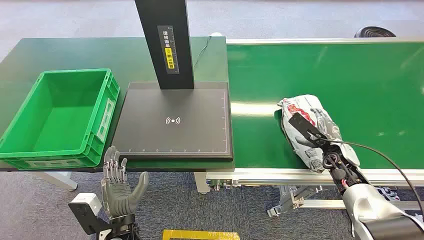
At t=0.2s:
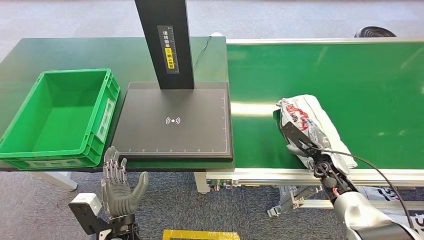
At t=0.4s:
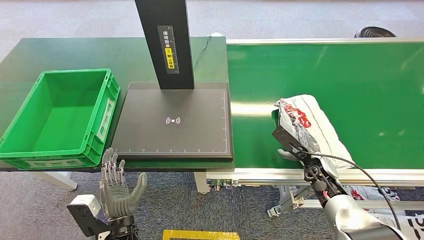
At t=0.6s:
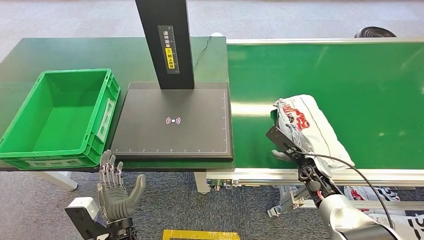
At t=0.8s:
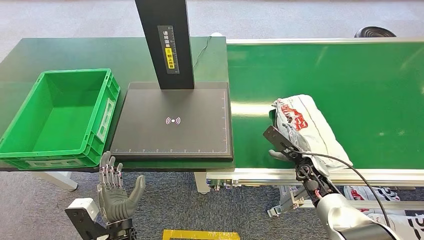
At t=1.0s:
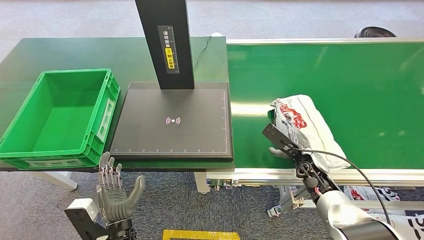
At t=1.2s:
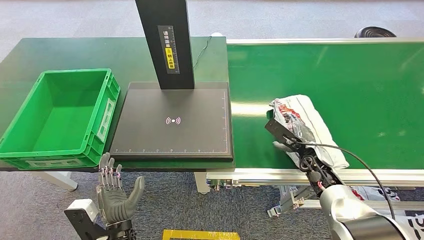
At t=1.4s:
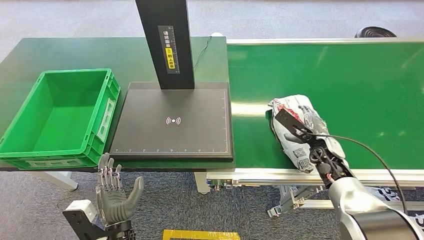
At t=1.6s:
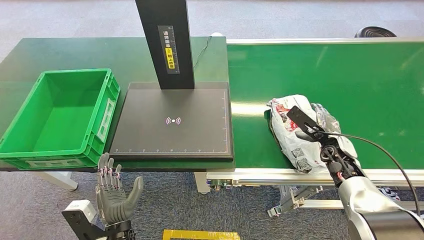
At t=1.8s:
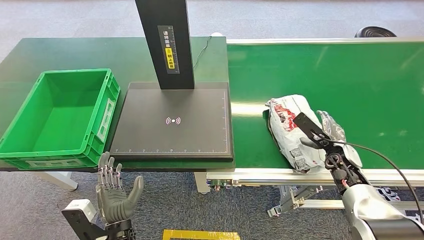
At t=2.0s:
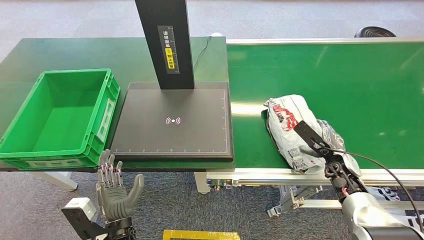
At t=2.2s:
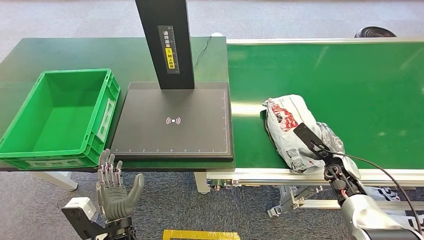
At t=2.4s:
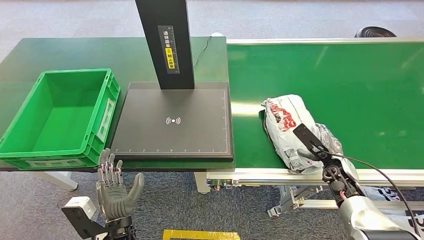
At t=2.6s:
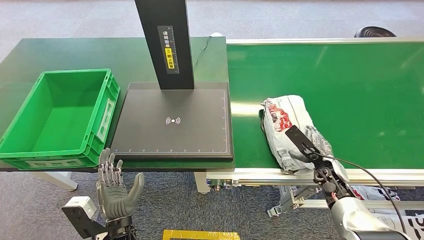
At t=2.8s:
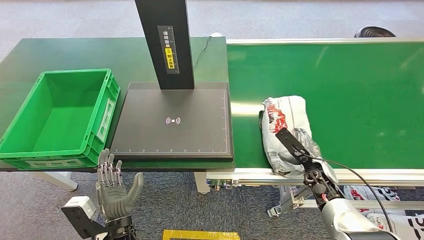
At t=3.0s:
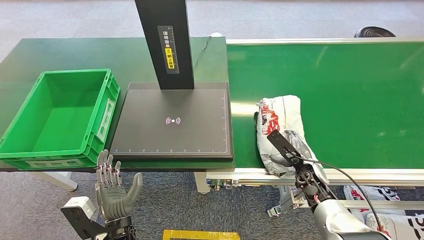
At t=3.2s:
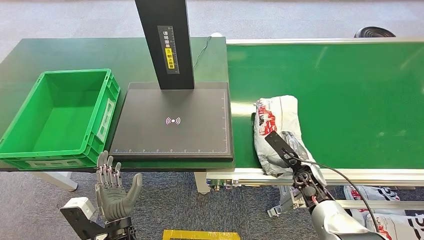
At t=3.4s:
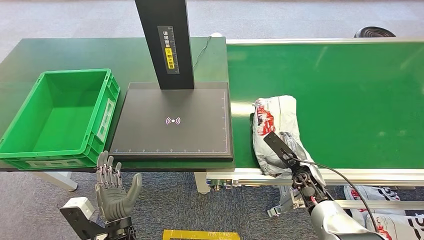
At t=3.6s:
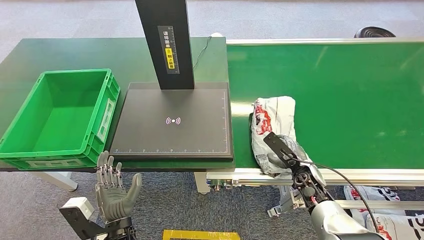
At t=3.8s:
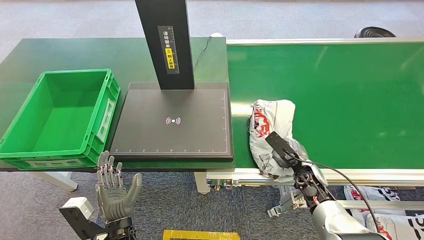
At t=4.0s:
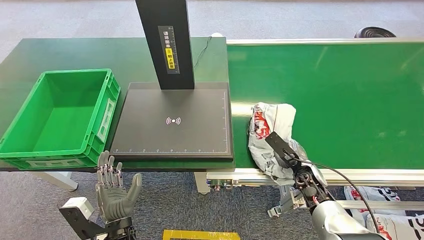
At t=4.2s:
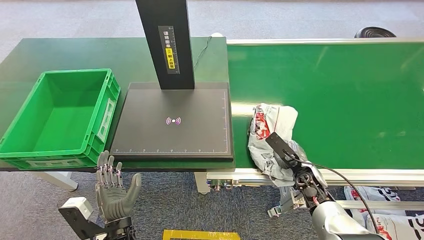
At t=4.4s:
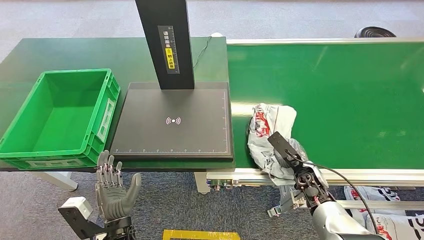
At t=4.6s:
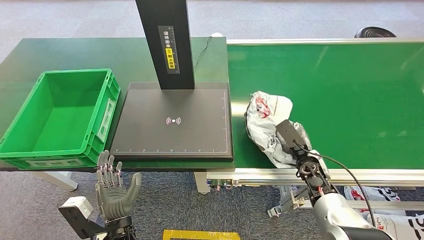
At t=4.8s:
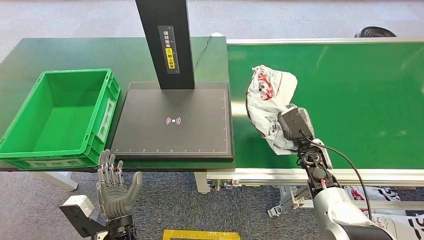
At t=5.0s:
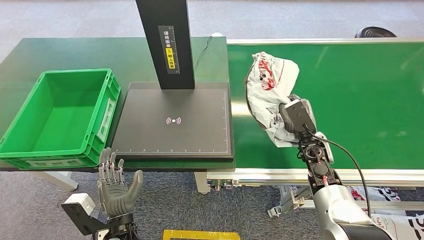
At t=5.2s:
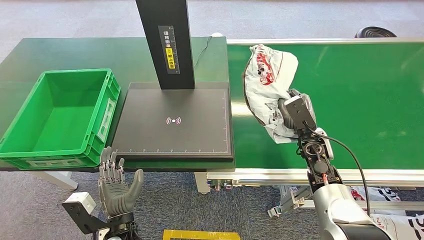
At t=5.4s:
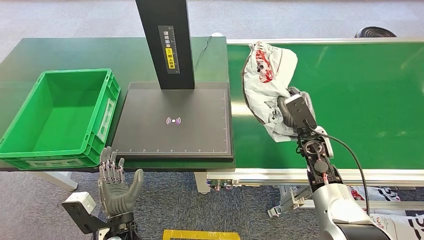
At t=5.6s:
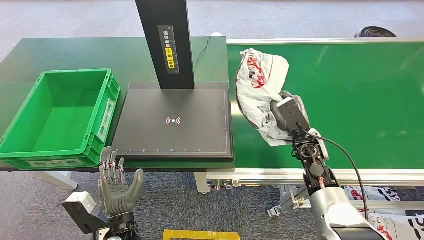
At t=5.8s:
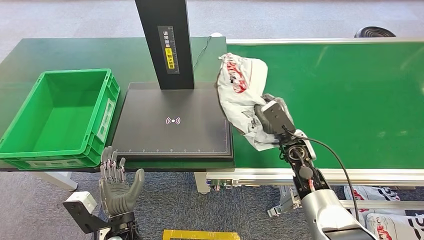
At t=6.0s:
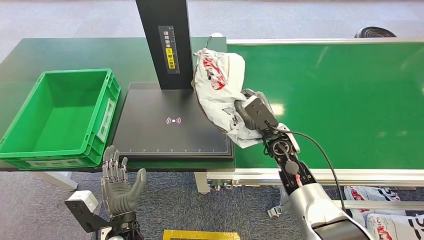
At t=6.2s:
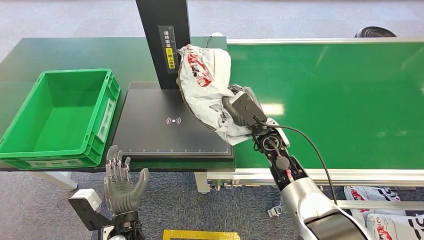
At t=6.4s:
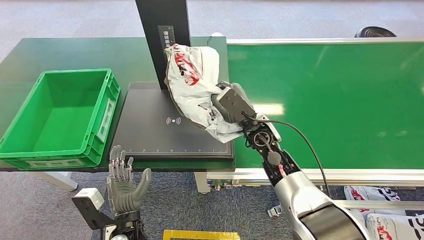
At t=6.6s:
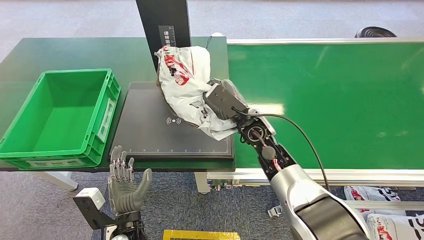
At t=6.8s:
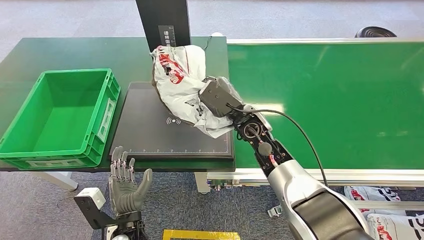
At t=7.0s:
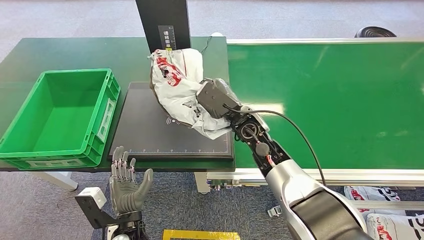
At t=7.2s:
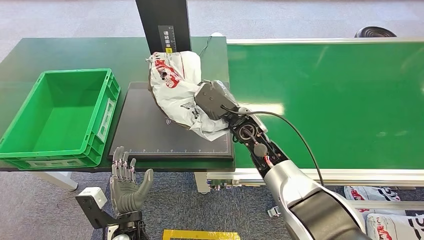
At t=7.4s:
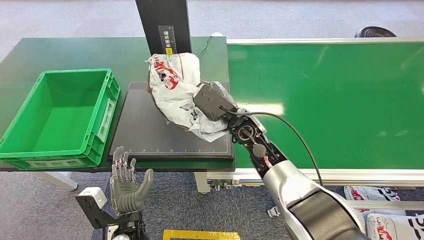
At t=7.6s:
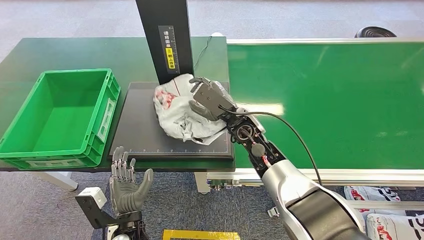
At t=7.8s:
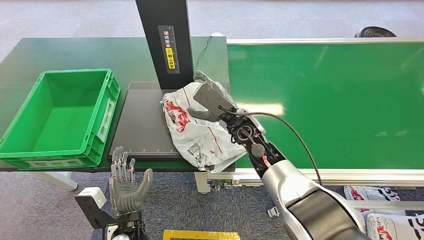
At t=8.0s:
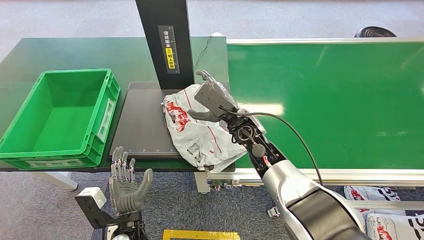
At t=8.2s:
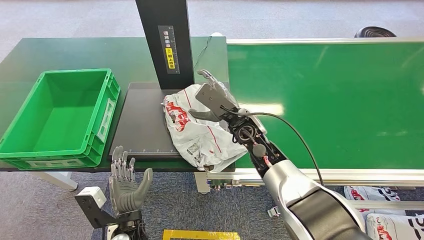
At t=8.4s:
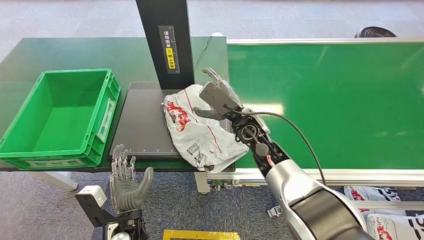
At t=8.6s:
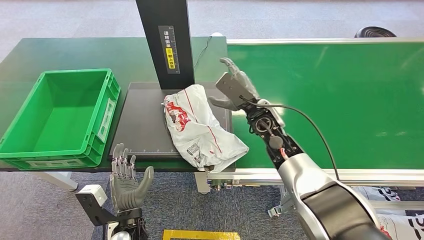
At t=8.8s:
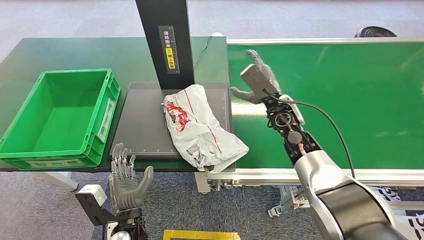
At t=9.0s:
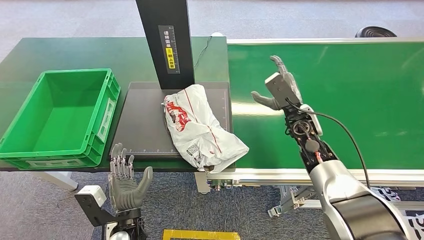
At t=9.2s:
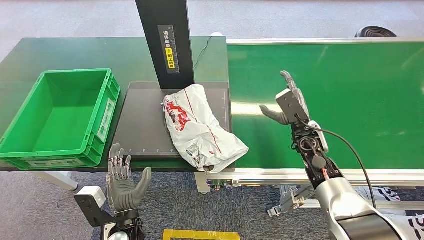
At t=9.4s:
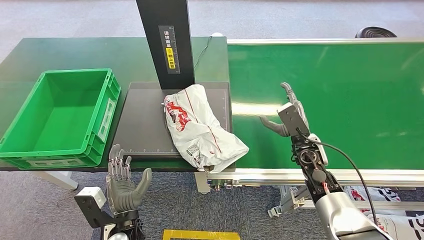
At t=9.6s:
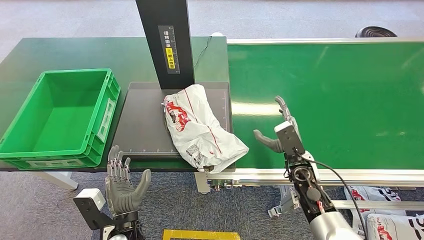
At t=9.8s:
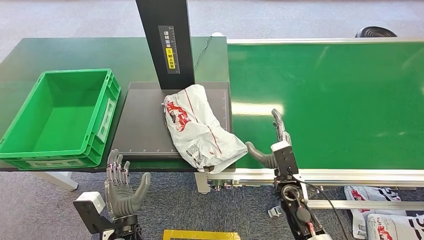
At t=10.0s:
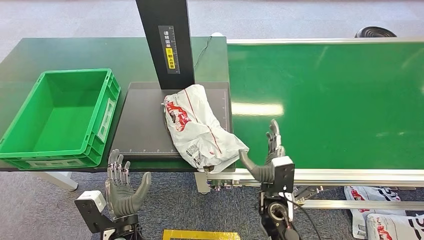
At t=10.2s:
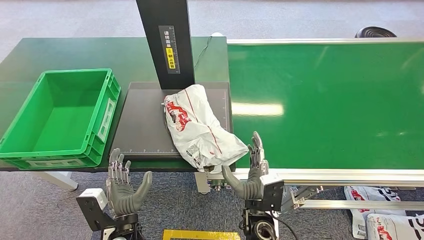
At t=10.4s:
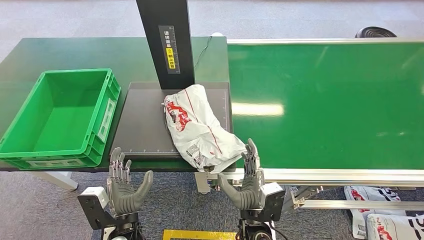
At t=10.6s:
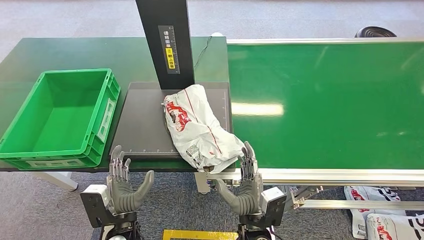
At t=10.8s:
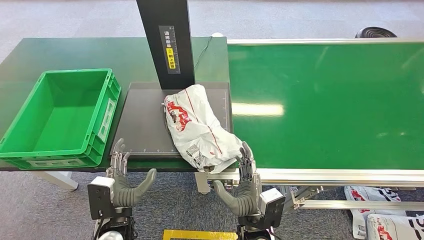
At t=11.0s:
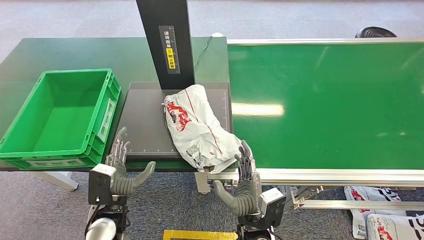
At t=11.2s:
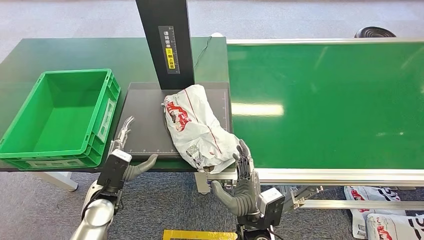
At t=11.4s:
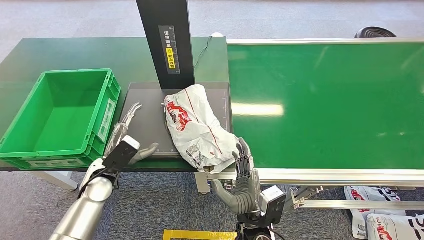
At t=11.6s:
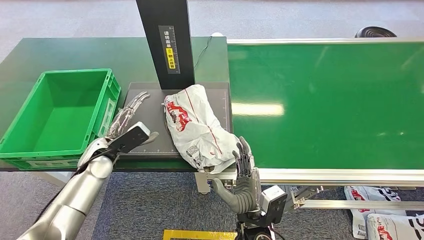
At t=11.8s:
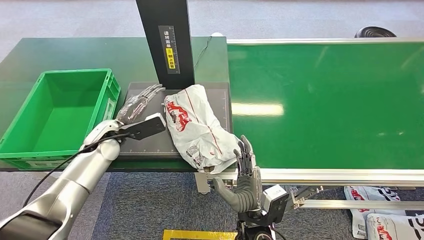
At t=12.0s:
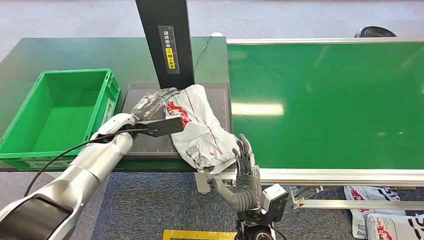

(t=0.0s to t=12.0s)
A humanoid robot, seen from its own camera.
Task of the whole recording: Weigh the package on the weighing device and place it in the left basket.
Step, t=0.0s - t=5.4s: Pick up the package from the conveyor belt.
Step, t=5.6s - t=9.6s: Place the package onto the inbound machine.
t=1.6s - t=3.0s: The right hand moves downward and to the left, about 10 cm.
t=3.0s - t=4.4s: There are only small adjustments of the hands.
t=4.4s - t=6.0s: The right hand heads upward, to the left and forward, covering approximately 15 cm.
t=6.0s - t=7.6s: The right hand goes some 10 cm to the left.
t=7.6s - t=9.0s: The right hand shifts roughly 15 cm to the right.
t=9.0s - t=10.4s: The right hand is displaced backward, to the left and downward by about 30 cm.
t=10.4s - t=12.0s: The left hand shifts approximately 25 cm forward and upward.

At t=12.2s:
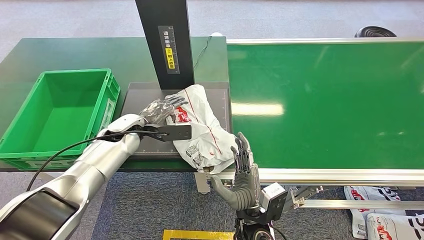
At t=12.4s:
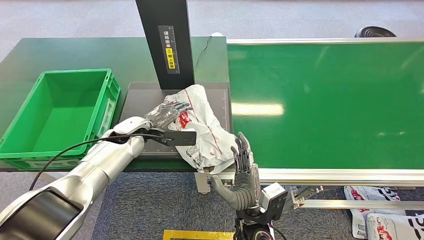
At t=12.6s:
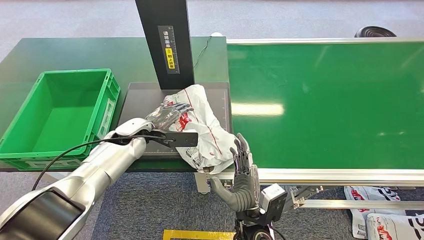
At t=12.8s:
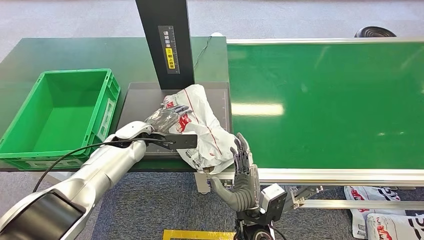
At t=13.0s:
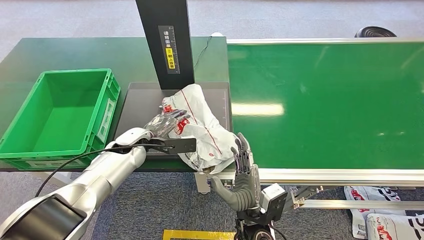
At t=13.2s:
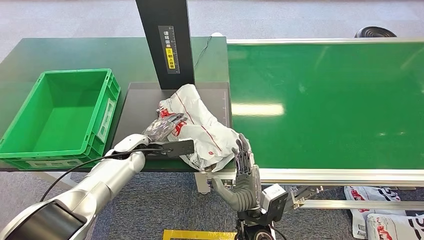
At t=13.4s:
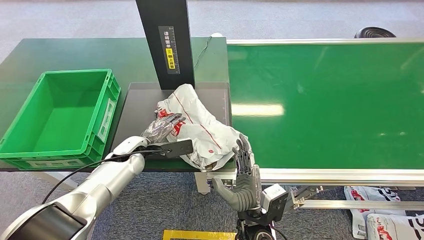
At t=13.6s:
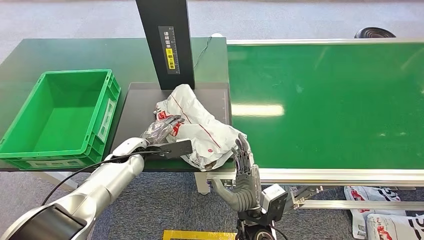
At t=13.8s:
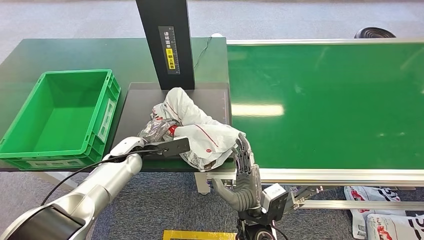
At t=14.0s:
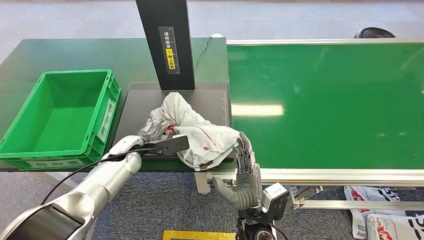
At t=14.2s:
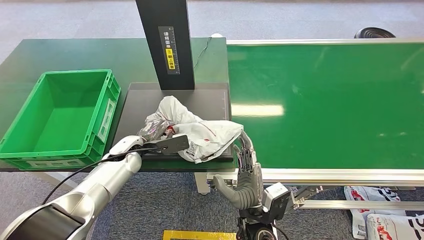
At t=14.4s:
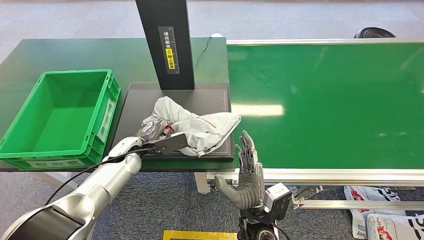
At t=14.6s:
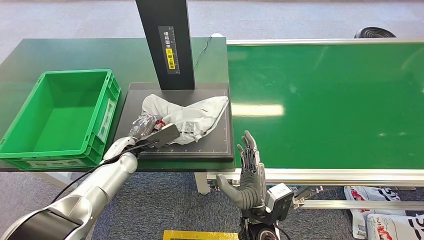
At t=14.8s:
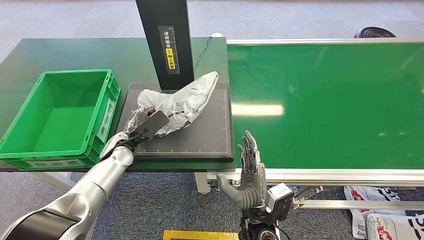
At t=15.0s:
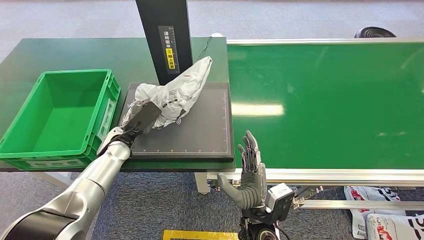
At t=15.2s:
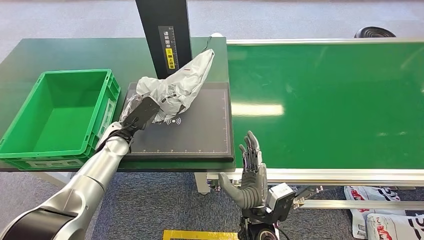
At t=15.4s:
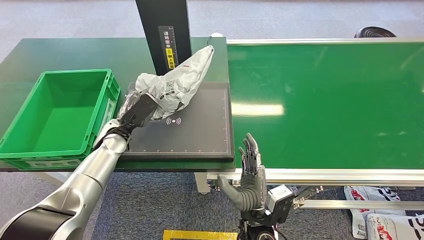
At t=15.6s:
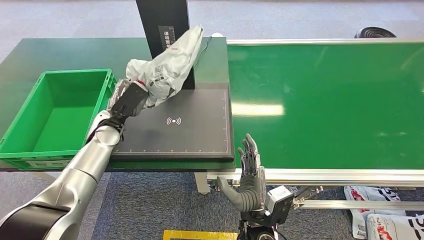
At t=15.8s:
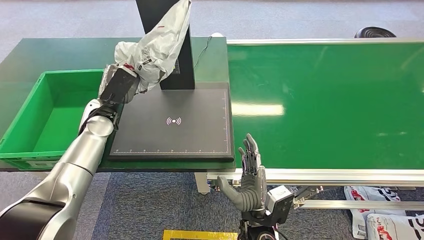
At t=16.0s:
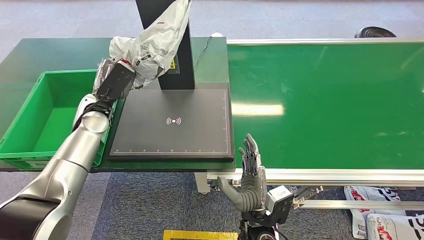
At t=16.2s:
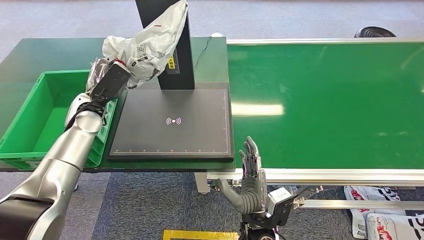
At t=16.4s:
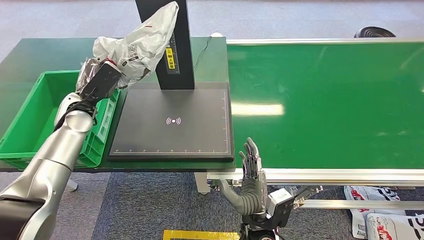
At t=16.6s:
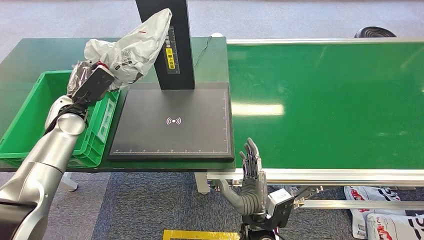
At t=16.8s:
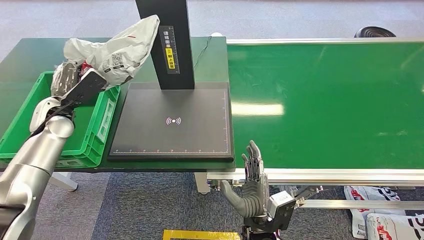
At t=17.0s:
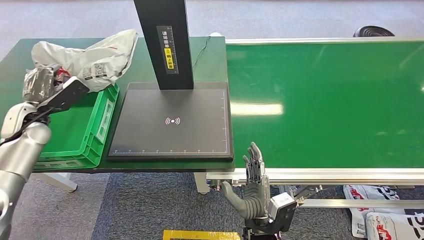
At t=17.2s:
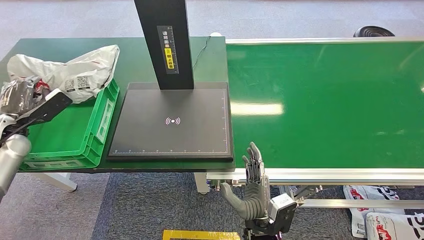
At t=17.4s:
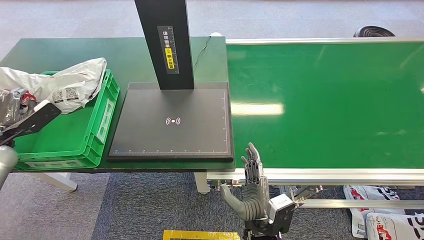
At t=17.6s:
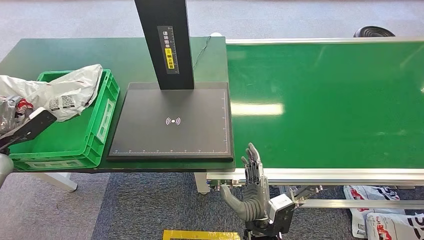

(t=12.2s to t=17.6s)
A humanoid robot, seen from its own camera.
Task of the whole recording: Weigh the package on the weighing device and place it in the left basket.
Step, t=12.2s - t=14.6s: Pick up the package from the inbound machine.
t=12.2s - t=13.6s: The left hand heads downward, covering roughly 5 cm.
t=15.0s - t=16.2s: The left hand moves upward and to the left, roughly 10 cm.
t=16.2s - t=17.6s: The left hand moves to the left, about 25 cm.
